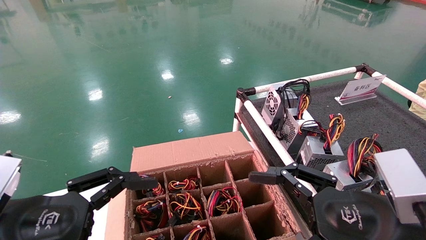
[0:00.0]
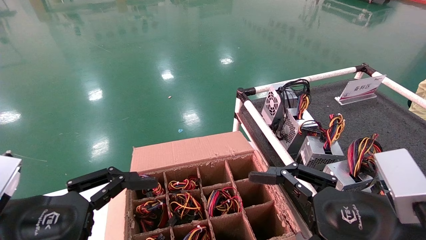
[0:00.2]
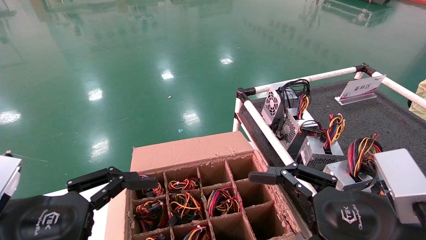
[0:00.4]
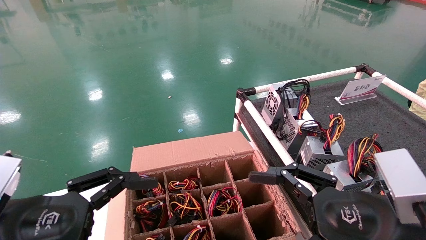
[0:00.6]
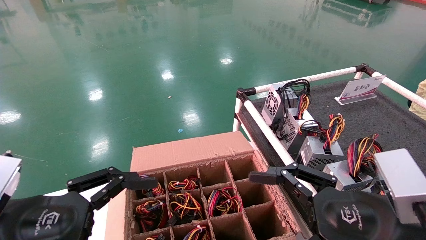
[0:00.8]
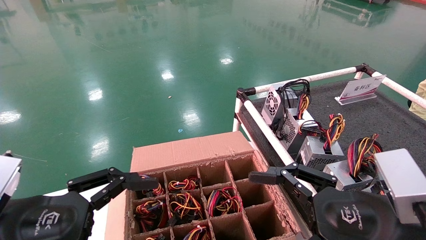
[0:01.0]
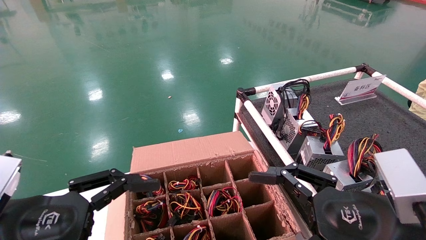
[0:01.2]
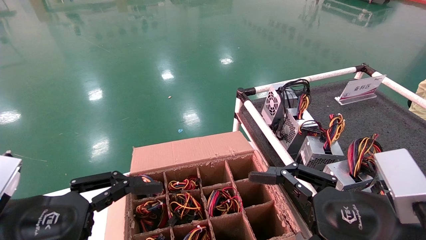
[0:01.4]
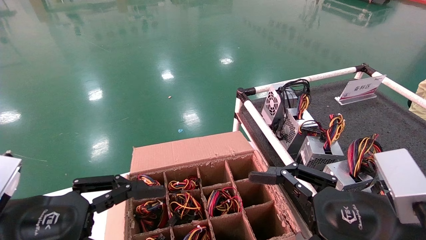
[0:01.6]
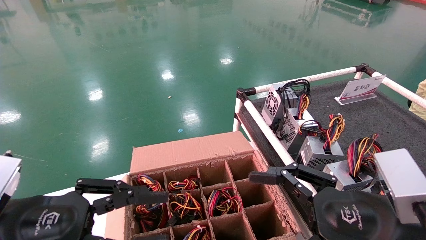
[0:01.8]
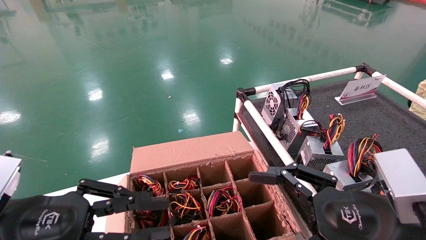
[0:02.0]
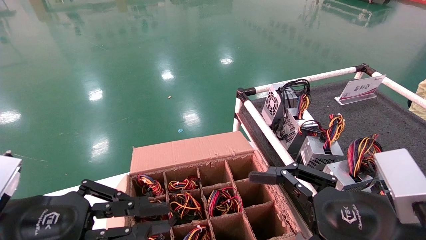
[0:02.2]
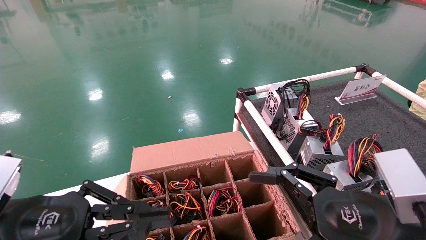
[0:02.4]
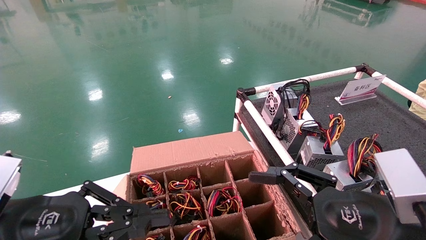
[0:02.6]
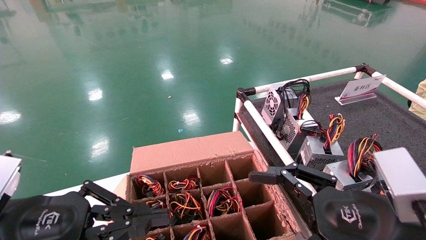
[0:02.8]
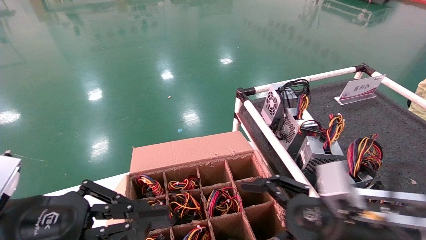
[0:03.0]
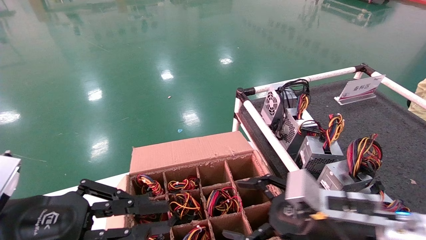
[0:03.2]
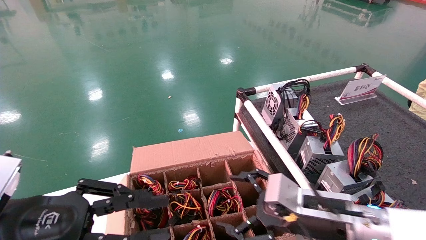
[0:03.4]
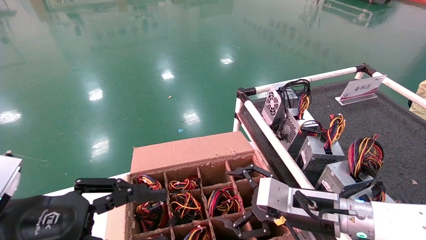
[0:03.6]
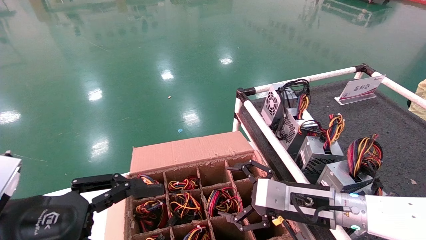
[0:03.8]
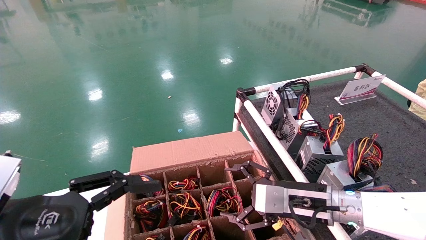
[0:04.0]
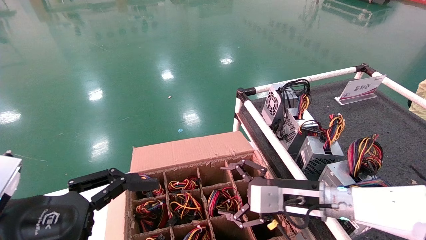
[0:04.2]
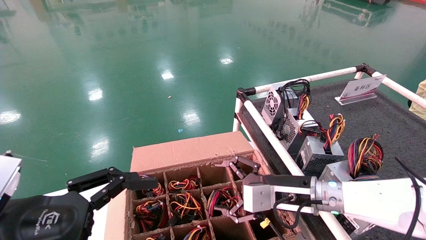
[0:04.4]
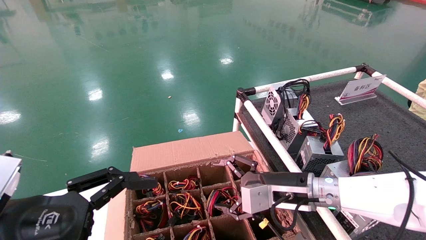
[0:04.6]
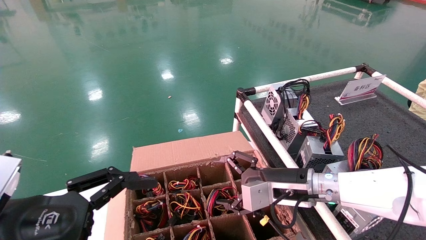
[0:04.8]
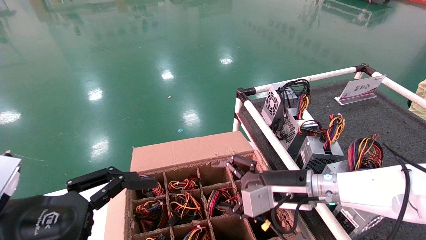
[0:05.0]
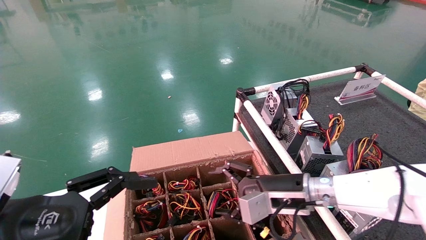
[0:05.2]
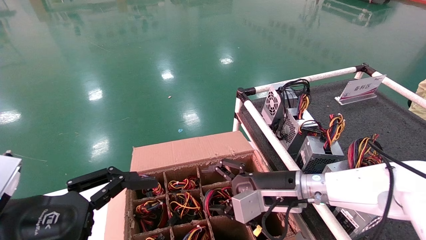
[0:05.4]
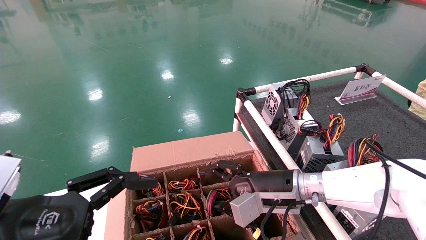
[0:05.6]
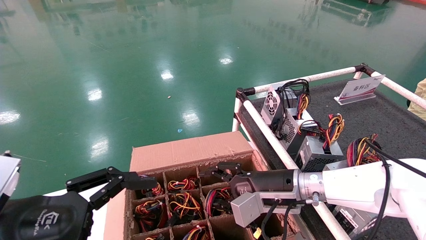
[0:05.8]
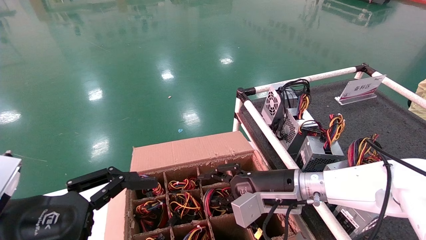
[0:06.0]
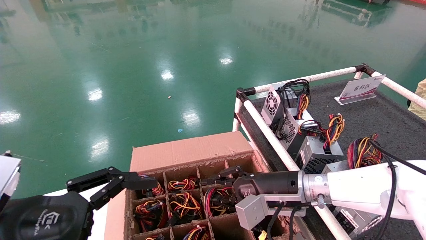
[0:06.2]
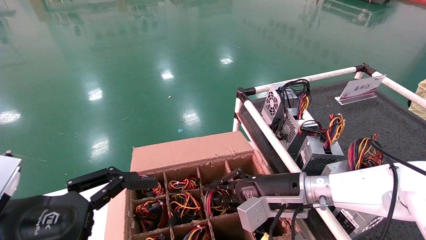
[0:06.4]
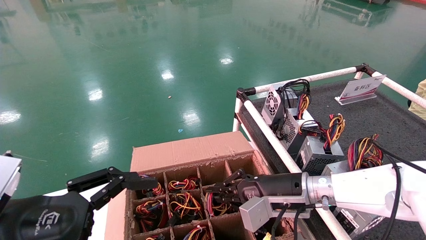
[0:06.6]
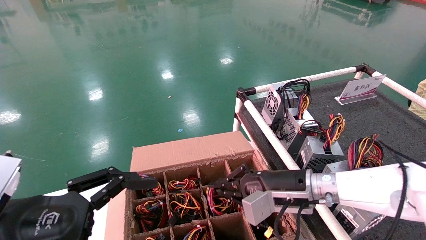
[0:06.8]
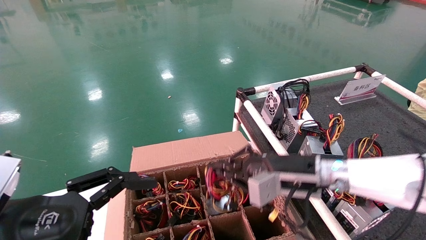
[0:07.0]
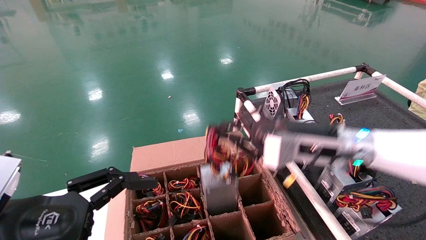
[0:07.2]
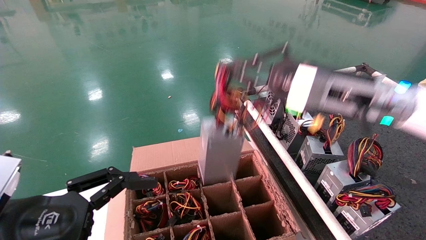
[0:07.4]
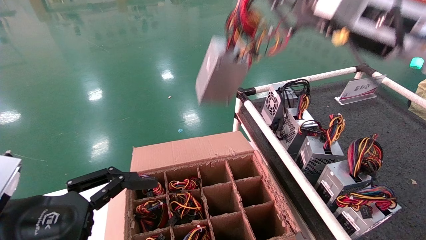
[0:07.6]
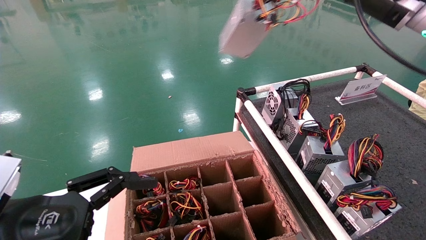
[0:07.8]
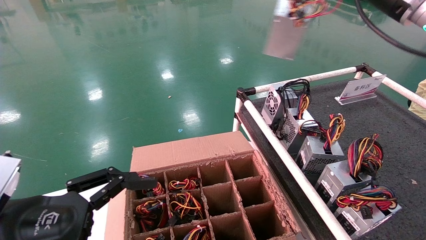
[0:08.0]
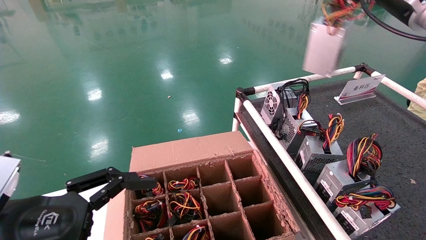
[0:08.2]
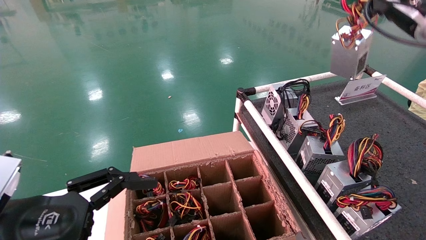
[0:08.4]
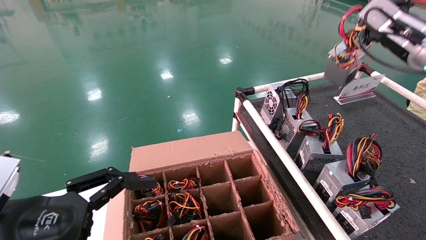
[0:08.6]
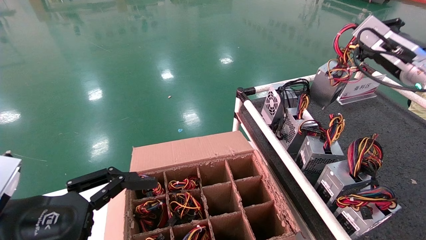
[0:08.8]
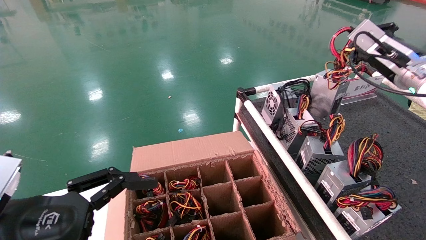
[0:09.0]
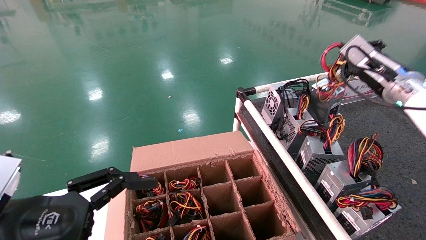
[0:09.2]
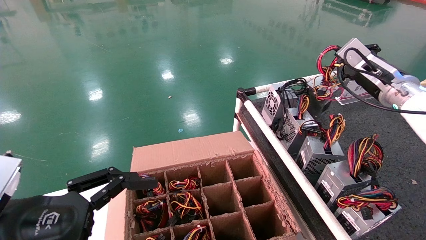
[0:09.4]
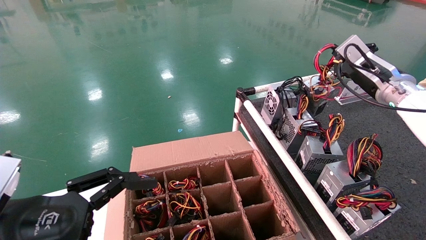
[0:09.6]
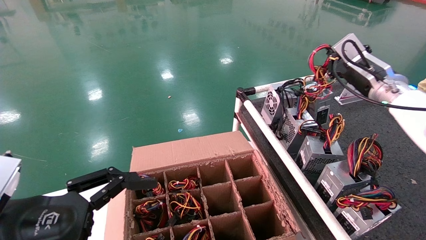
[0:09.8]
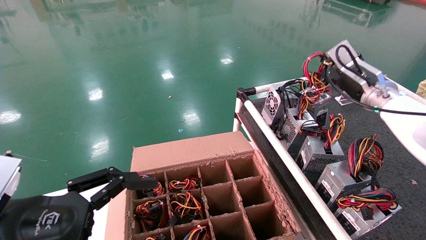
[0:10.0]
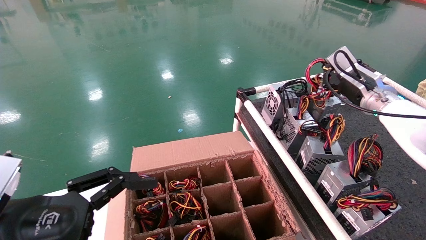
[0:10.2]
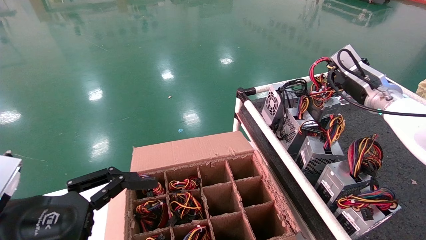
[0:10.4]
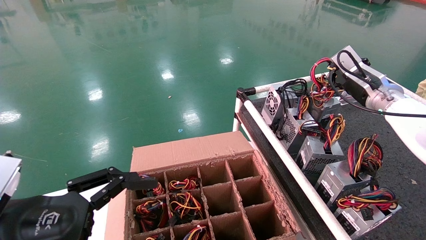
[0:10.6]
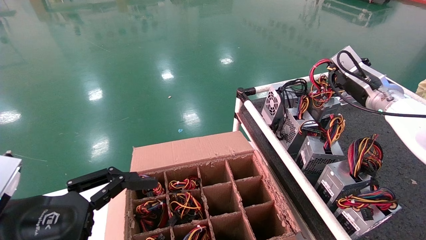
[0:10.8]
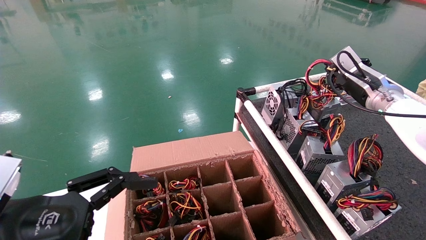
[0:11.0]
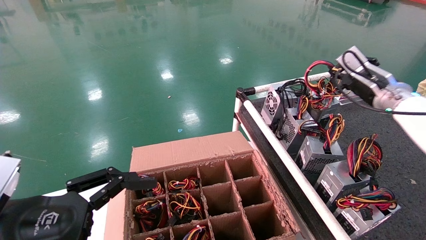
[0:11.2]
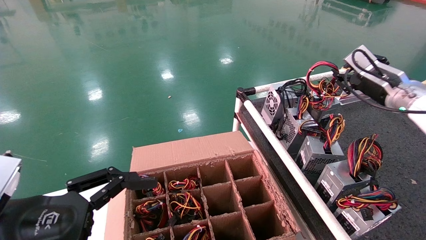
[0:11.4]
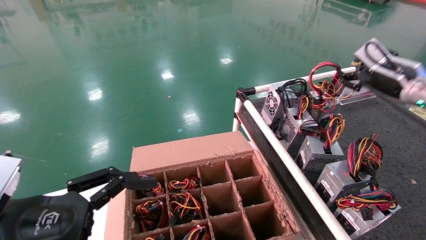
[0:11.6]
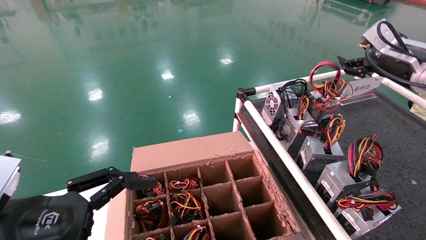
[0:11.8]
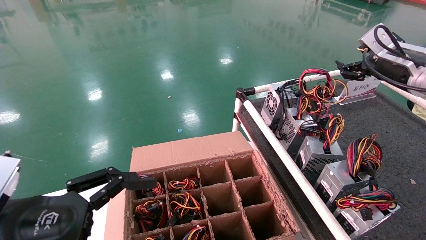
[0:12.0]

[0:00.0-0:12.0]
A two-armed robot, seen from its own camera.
Step, 0:03.2 to 0:06.8: Grab and lift the power supply from the large box.
Step, 0:07.0 to 0:11.2: Place the power supply on the operating table.
0:00.0 to 0:01.6: Neither gripper changes place.
0:01.6 to 0:03.0: The right gripper ends up roughly 5 cm from where it was, while the left gripper closes up.
0:03.0 to 0:04.4: The left gripper opens; the right gripper travels forward by some 15 cm.
0:04.4 to 0:06.0: The right gripper closes up.
0:06.0 to 0:07.6: The right gripper shifts about 30 cm upward, and closes its fingers.
0:07.6 to 0:09.0: The right gripper is displaced to the right and forward by roughly 15 cm.
0:09.0 to 0:10.4: The right gripper travels downward by some 5 cm.
0:10.4 to 0:12.0: The right gripper changes place by approximately 10 cm, and opens.

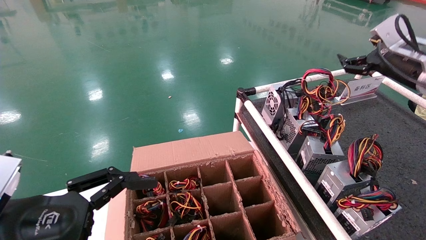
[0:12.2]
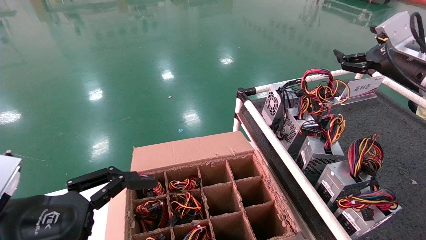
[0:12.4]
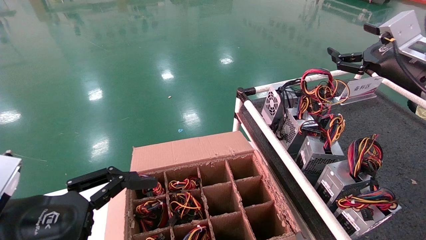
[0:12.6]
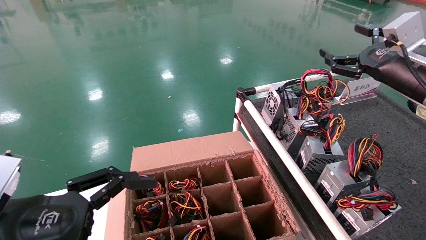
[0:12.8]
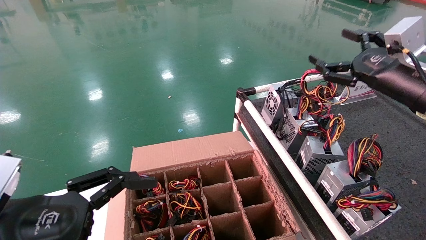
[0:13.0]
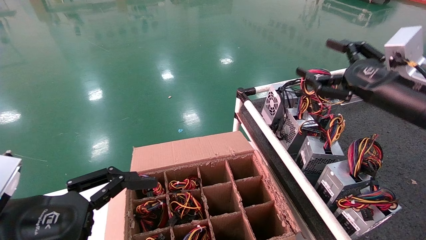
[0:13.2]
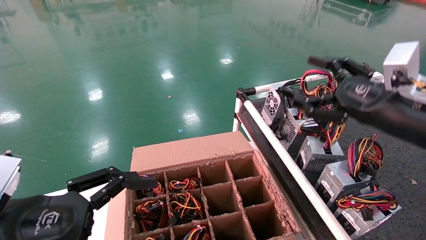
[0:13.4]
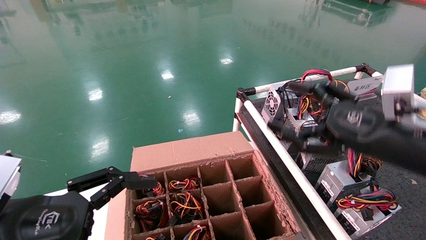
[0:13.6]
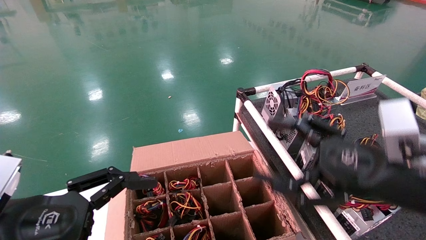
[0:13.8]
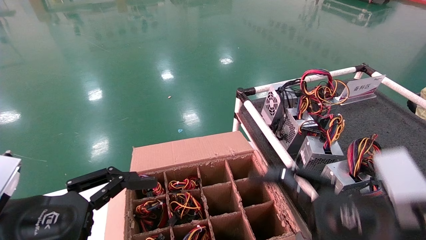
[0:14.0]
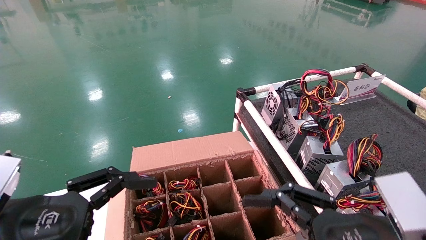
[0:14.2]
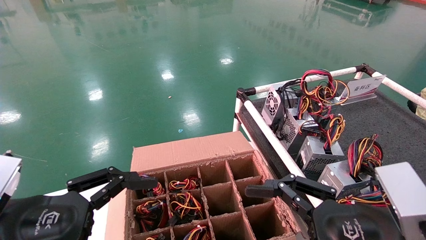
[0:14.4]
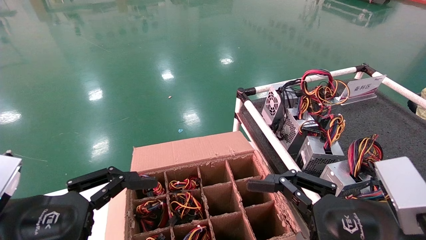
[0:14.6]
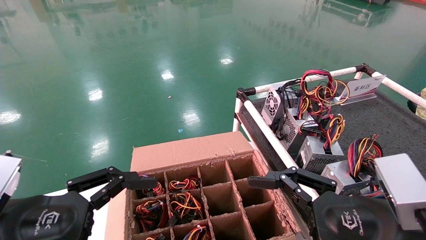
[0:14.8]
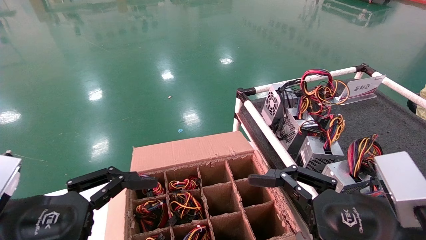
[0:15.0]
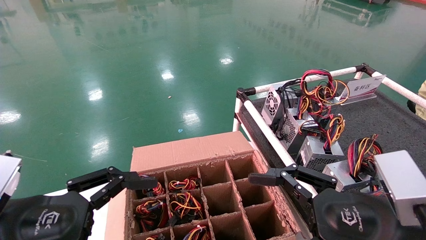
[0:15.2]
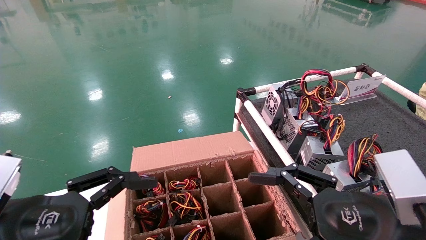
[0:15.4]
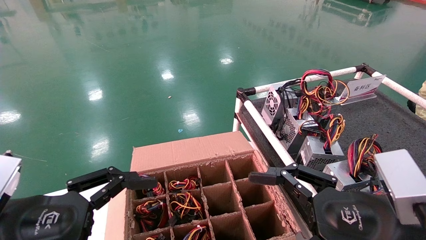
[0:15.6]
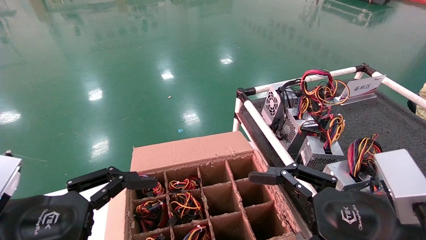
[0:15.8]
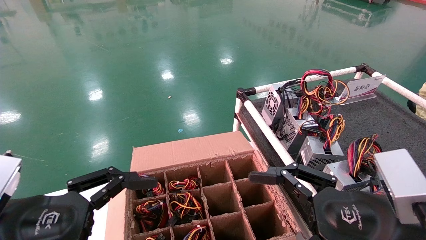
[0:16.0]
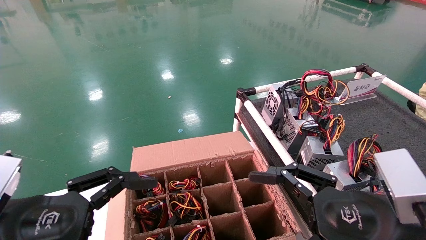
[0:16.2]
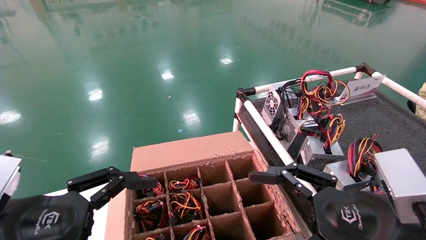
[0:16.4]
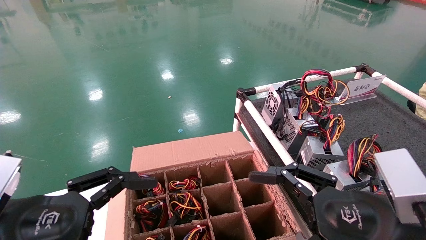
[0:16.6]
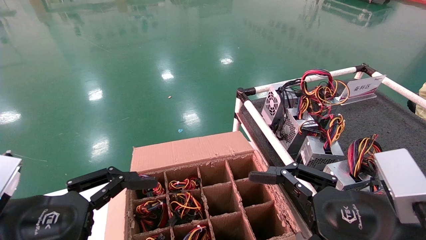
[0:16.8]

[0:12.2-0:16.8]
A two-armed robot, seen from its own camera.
0:12.2 to 0:13.8: The right gripper is displaced backward, to the left and downward by about 25 cm.
0:13.8 to 0:15.2: The right gripper moves about 5 cm.
0:15.2 to 0:16.8: Neither gripper changes place.
